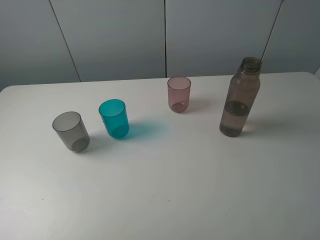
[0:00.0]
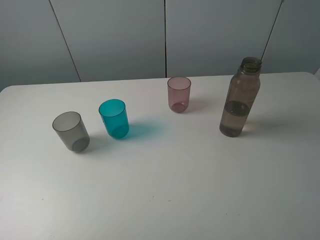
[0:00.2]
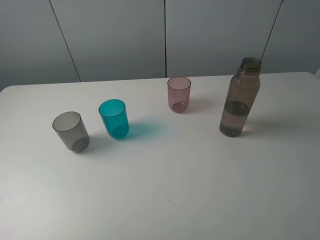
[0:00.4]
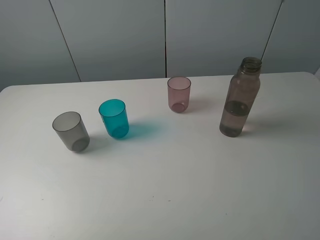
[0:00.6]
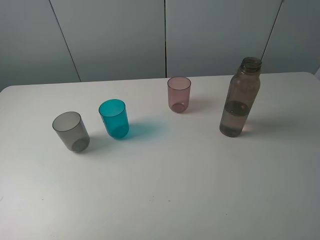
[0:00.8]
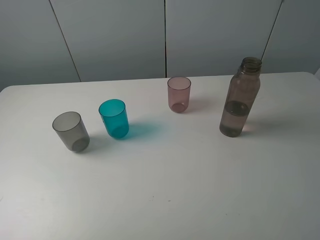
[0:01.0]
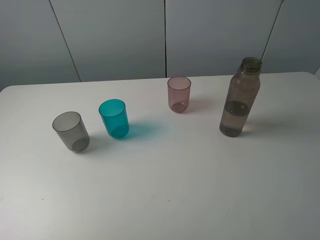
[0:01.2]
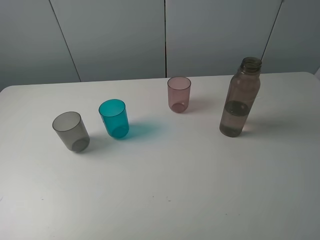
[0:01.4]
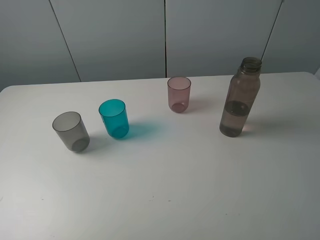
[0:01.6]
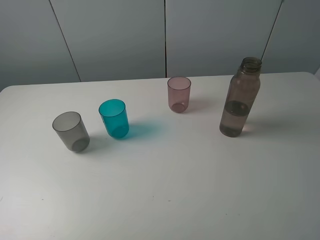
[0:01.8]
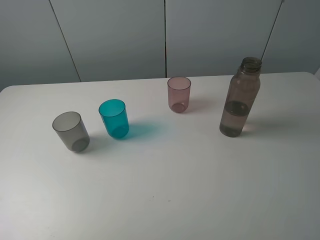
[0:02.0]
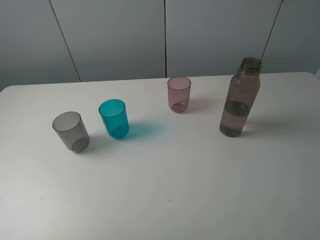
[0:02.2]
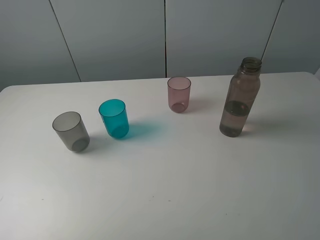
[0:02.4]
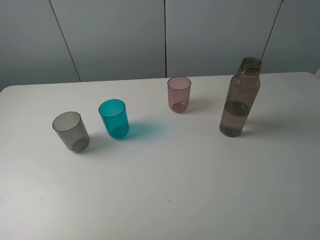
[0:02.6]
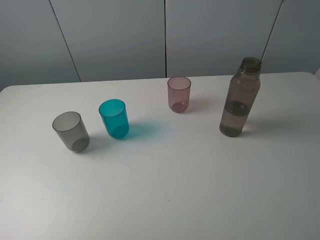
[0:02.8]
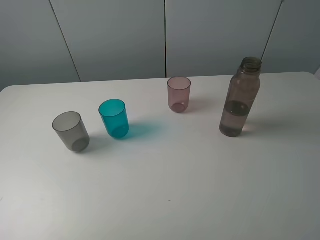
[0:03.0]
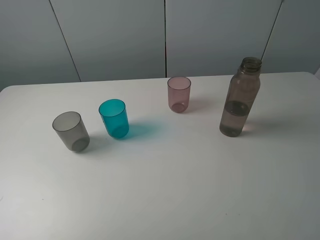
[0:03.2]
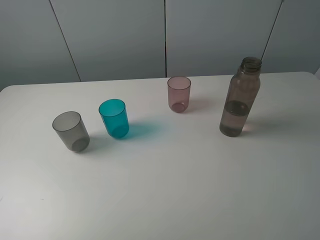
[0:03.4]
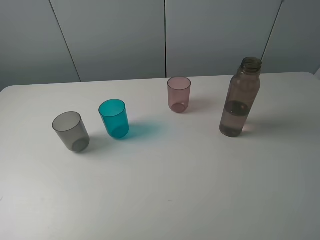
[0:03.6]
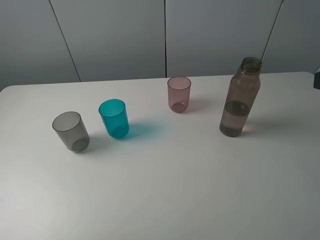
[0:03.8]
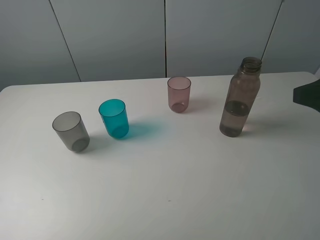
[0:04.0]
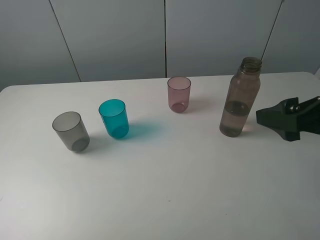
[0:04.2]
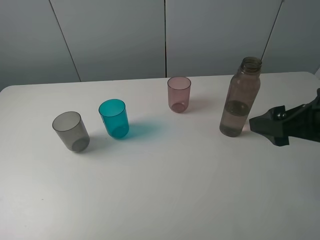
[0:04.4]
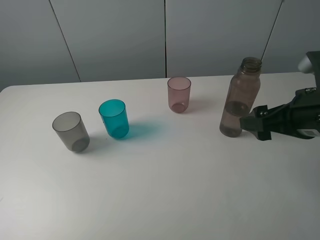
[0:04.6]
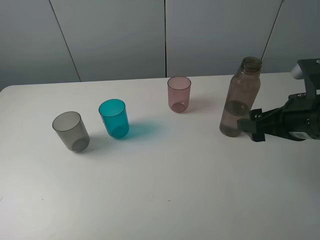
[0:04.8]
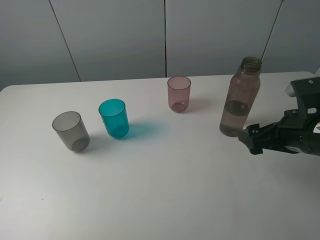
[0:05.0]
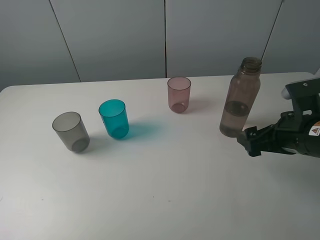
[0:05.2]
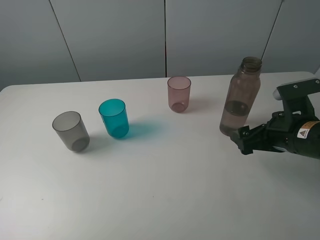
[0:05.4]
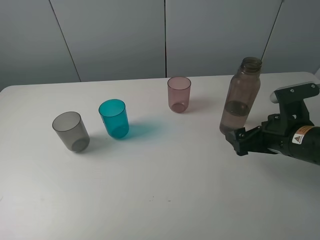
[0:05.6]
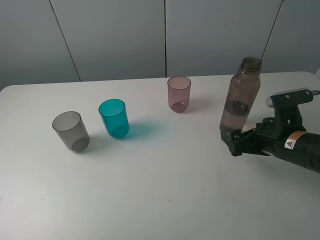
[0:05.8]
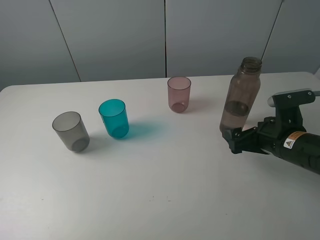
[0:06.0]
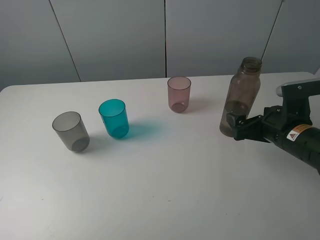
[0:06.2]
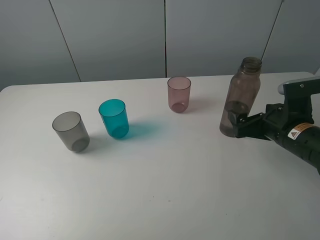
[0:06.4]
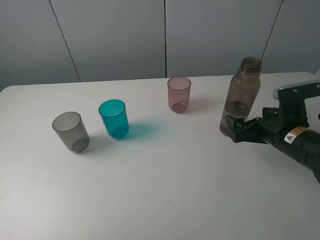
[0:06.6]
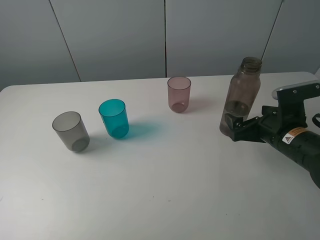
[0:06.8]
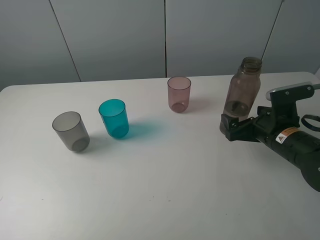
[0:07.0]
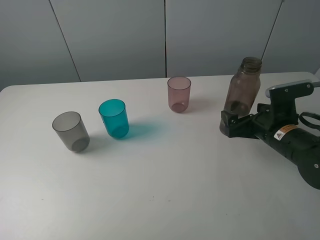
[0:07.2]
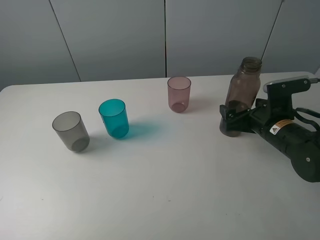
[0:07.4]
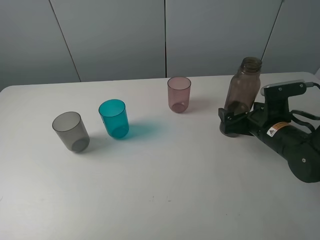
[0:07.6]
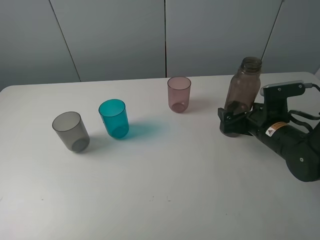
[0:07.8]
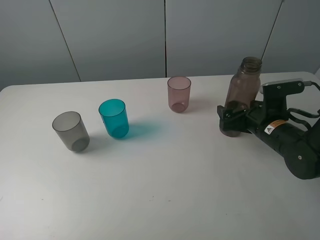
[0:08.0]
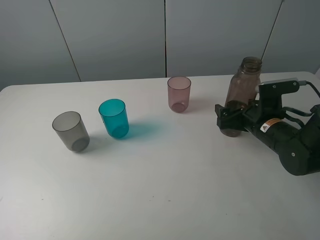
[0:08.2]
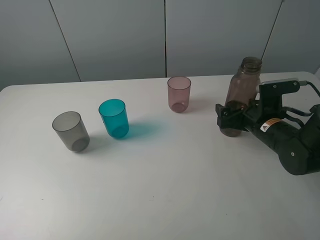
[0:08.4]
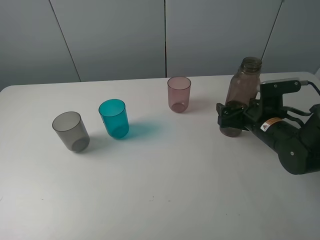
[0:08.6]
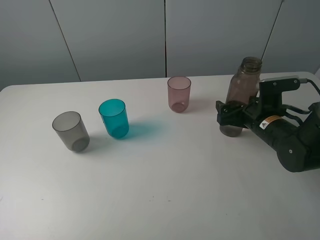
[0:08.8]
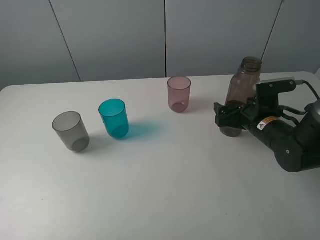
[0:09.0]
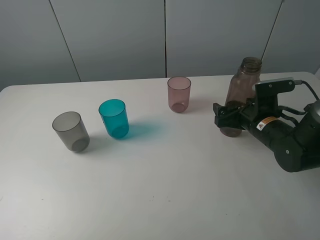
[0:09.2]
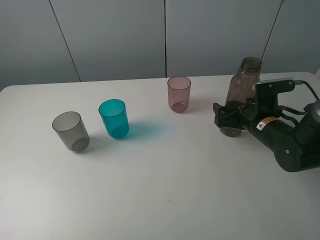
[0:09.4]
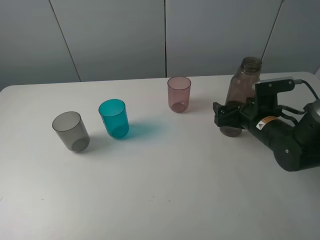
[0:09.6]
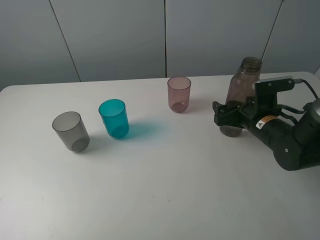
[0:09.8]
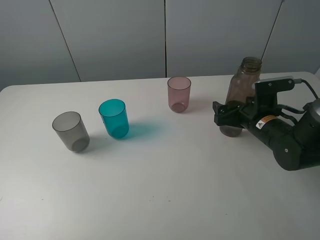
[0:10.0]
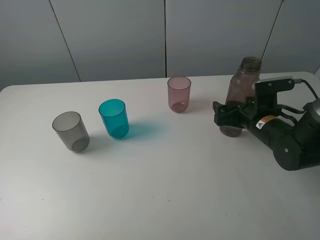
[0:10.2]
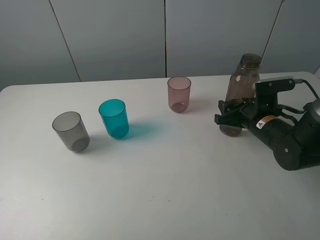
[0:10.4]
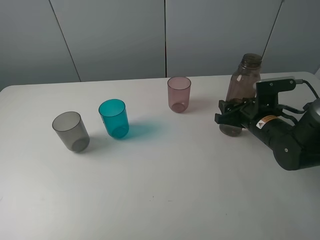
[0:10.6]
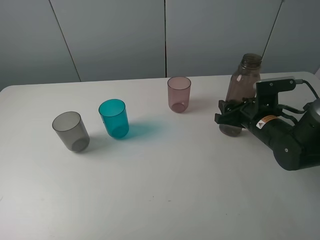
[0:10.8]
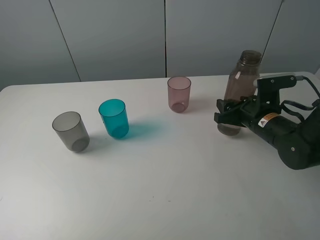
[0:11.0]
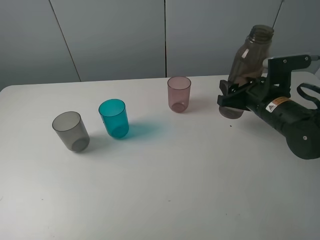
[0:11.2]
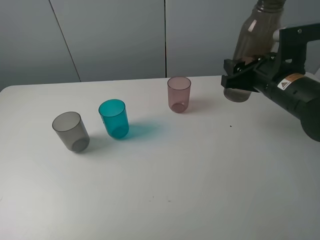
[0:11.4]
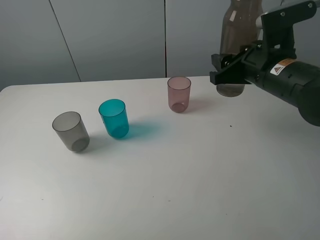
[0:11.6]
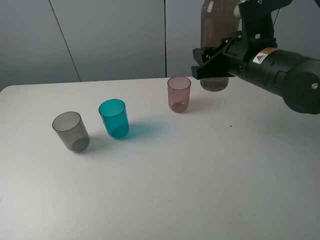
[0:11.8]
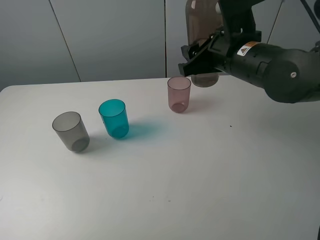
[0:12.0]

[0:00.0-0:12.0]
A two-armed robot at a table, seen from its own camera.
Task of the whole recording: pick up the bottle filled with water and pour water into the middle cup of the three cups.
Step, 0:00.0 to 0:10.6: Grasp the brown bottle with the right gripper.
0:00.0 to 0:03.0: Both grippers stay about where they are.
0:03.0 to 0:04.4: The right gripper travels forward by roughly 15 cm.
0:04.4 to 0:06.0: The right gripper goes approximately 15 cm downward and forward.
0:06.0 to 0:07.6: The grippers stay close to where they were, moving slightly.
0:07.6 to 0:09.0: The grippers move only a little.
0:09.0 to 0:10.4: The right gripper closes.
0:10.4 to 0:12.0: The right gripper moves upward and to the left, some 20 cm.

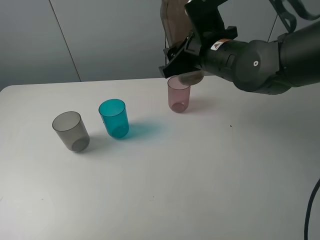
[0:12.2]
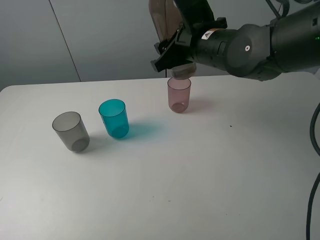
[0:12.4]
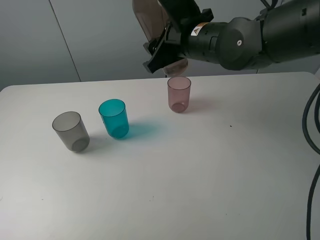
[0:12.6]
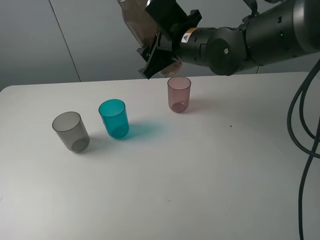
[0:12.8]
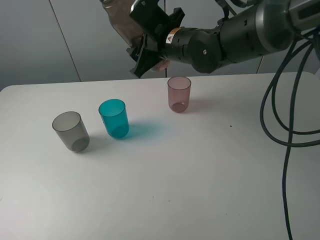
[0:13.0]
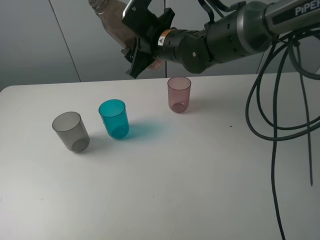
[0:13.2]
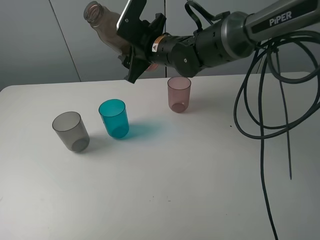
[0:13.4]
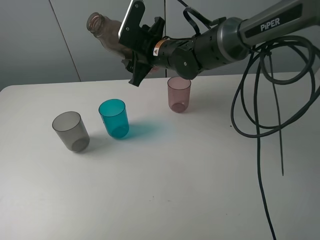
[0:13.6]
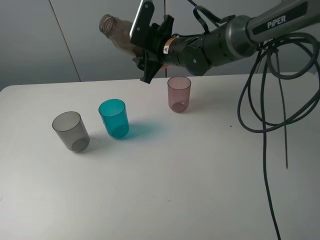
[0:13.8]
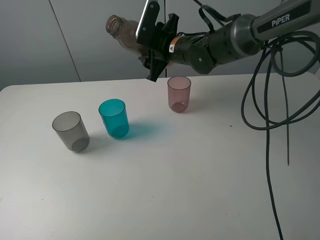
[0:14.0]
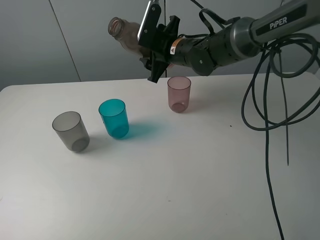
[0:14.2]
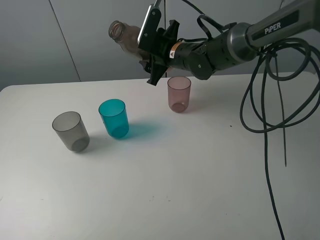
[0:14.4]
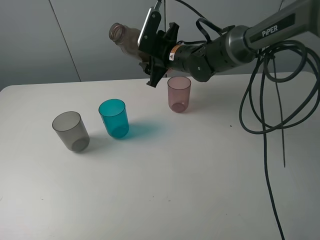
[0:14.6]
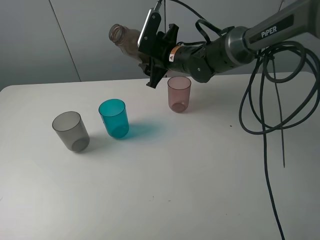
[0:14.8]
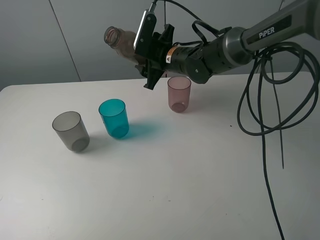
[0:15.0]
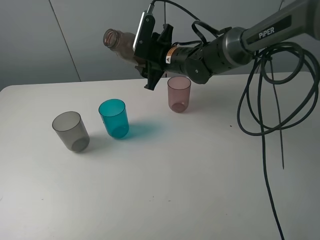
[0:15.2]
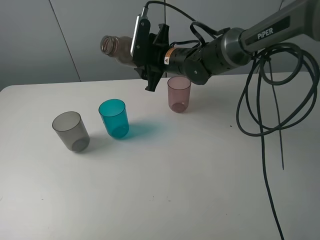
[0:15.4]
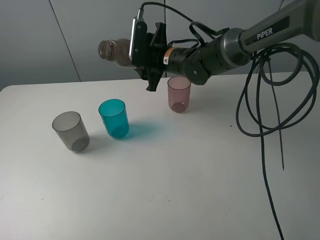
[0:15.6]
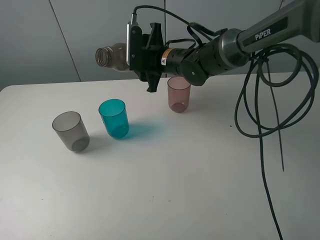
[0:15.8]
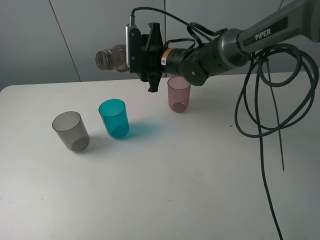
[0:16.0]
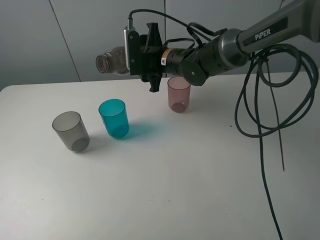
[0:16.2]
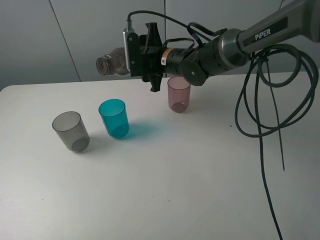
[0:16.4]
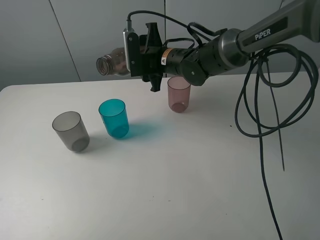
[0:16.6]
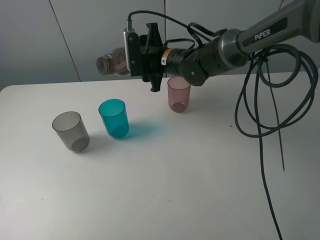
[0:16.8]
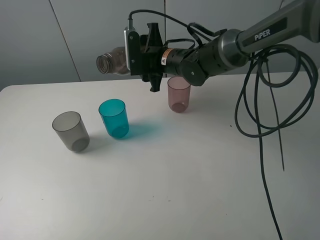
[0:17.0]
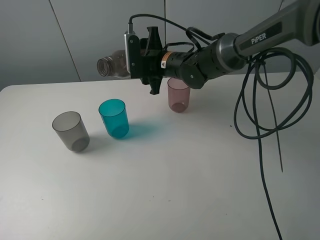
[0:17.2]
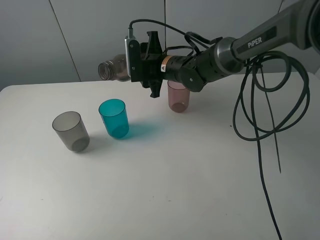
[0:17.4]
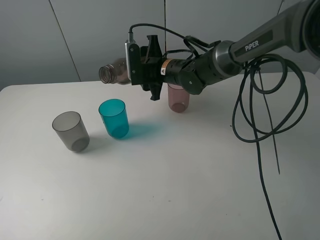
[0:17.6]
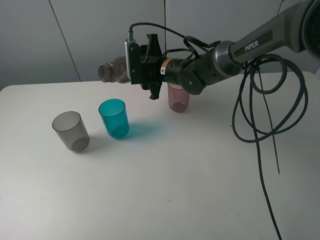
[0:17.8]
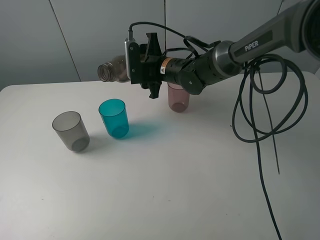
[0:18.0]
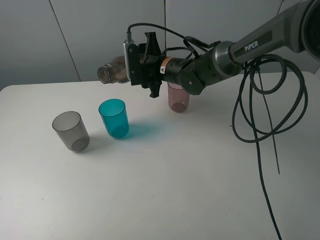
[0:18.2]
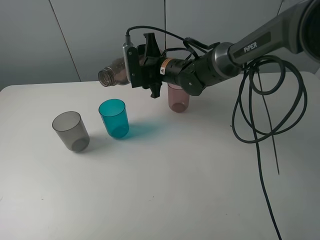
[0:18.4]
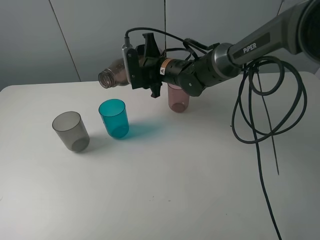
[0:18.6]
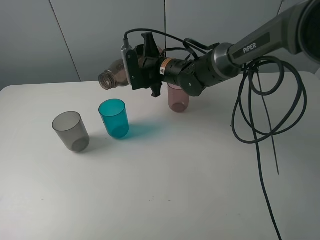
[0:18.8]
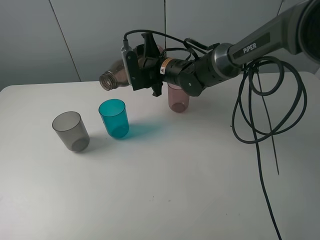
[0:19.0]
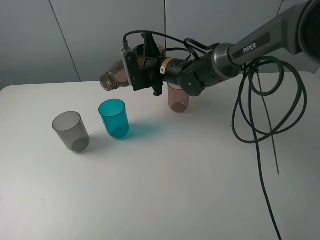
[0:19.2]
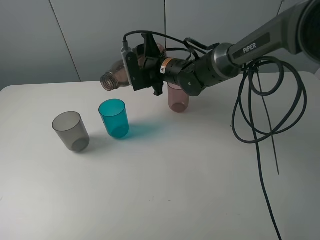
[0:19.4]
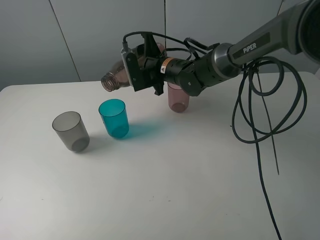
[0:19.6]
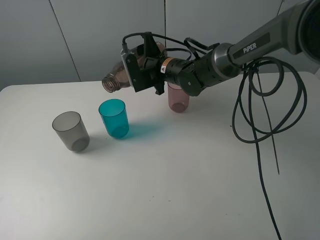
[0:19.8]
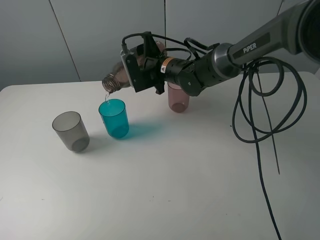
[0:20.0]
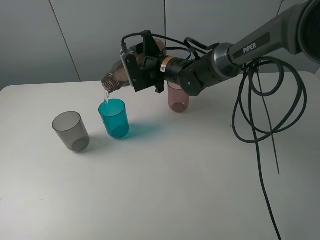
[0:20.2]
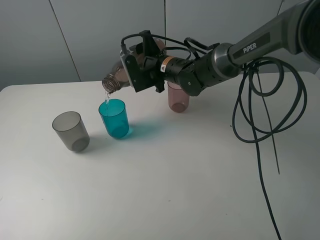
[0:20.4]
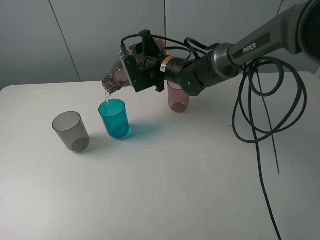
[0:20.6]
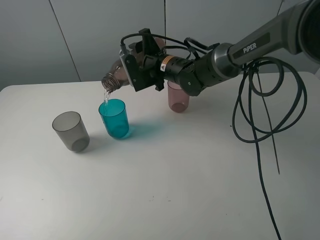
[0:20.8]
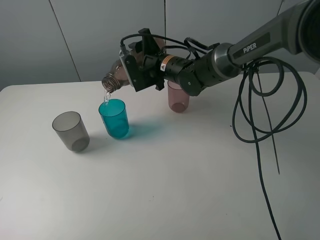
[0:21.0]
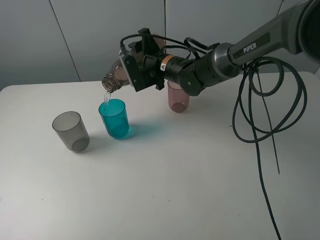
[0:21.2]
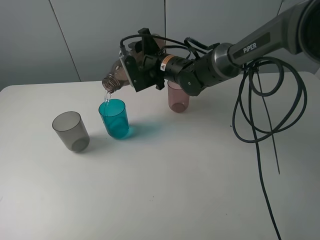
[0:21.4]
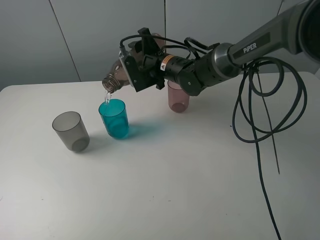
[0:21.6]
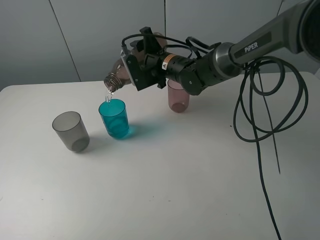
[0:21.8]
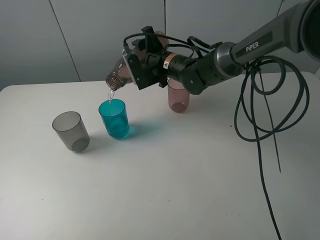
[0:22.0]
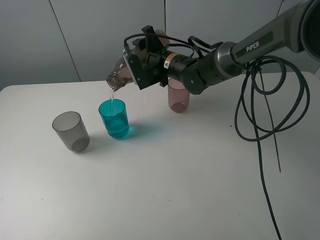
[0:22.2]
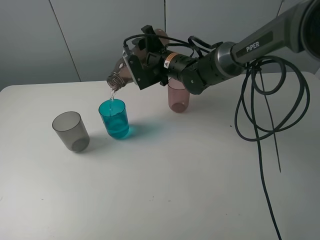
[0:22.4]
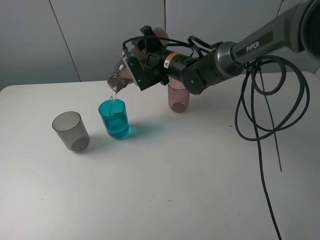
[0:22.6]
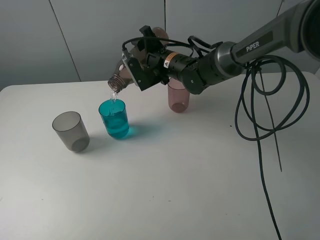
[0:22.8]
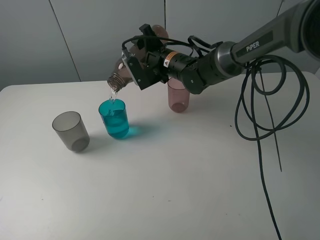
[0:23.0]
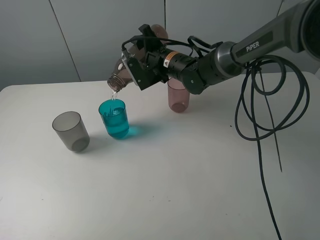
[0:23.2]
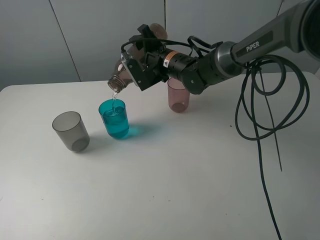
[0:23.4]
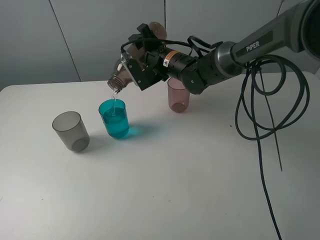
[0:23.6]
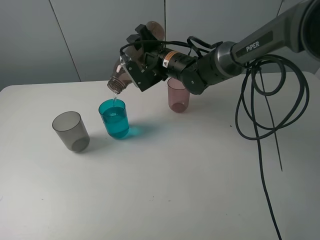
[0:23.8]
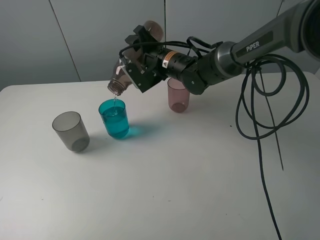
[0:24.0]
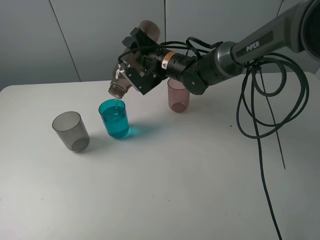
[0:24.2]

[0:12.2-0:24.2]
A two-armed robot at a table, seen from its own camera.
Task of the whole recording: pick up the bottle filled with water and pour water into the middle cup of the three cups.
Step, 0:12.2 to 0:19.4: Pour water from transparent bottle to blue cup with the right gripper.
0:12.2 to 0:13.8: The right gripper travels forward and to the left by some 10 cm.
0:13.8 to 0:15.2: There are only small adjustments of the grippers.
0:16.6 to 0:19.8: There are only small adjustments of the grippers.
0:19.8 to 0:22.6: There are only small adjustments of the grippers.
0:22.6 to 0:24.2: The grippers stay close to where they were, moving slightly.
